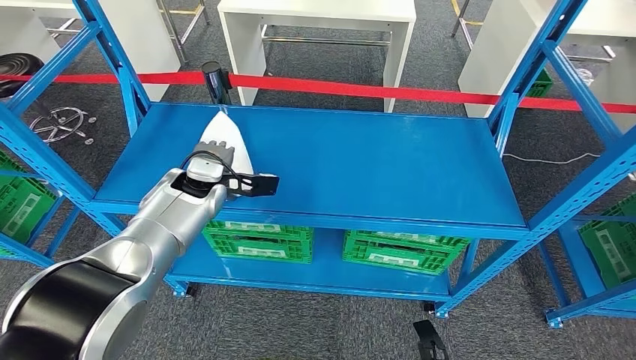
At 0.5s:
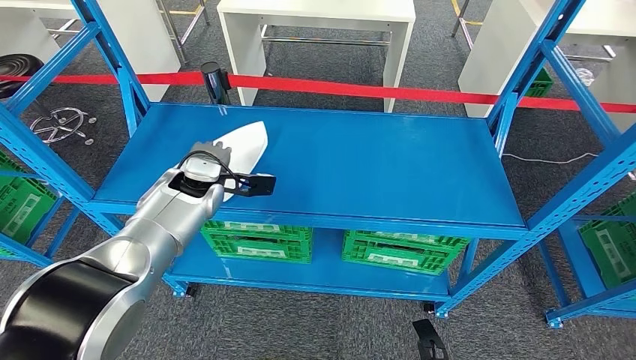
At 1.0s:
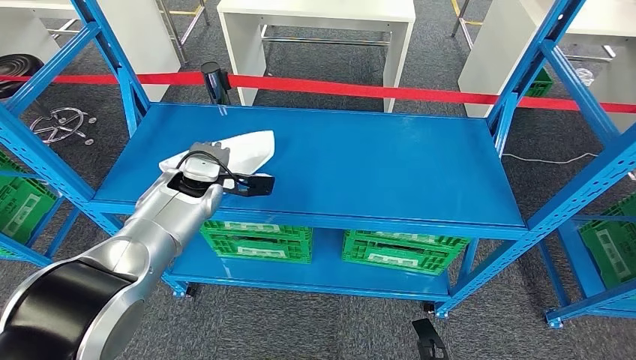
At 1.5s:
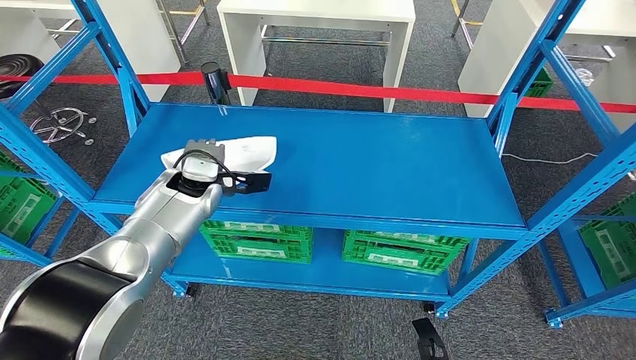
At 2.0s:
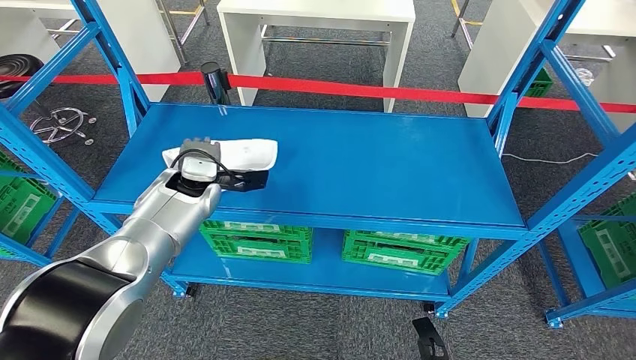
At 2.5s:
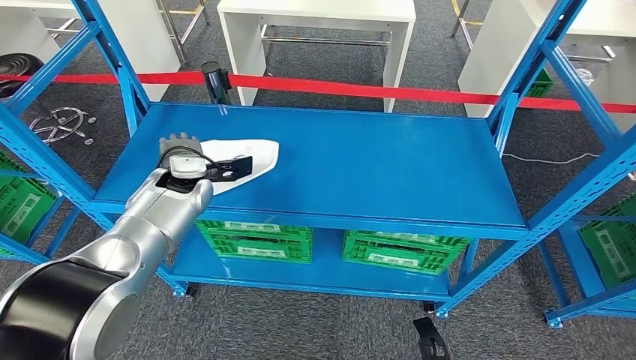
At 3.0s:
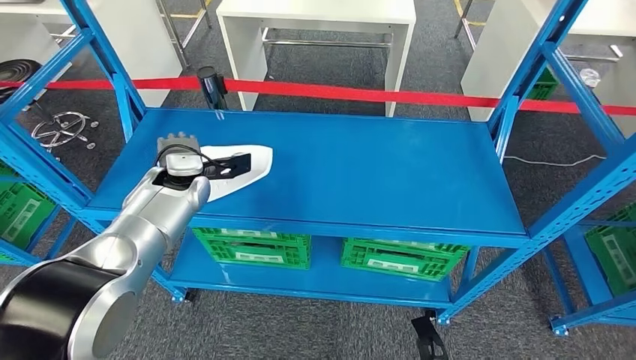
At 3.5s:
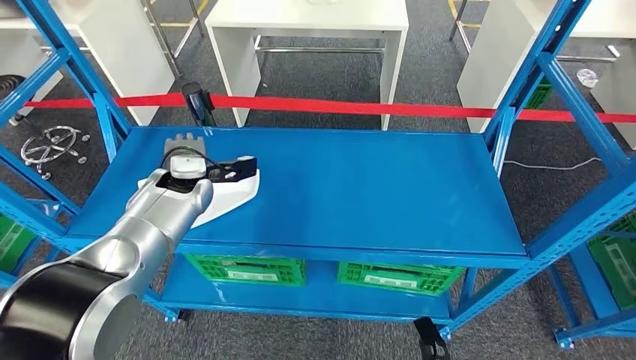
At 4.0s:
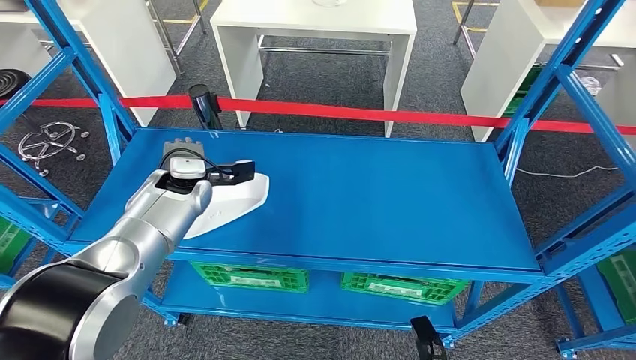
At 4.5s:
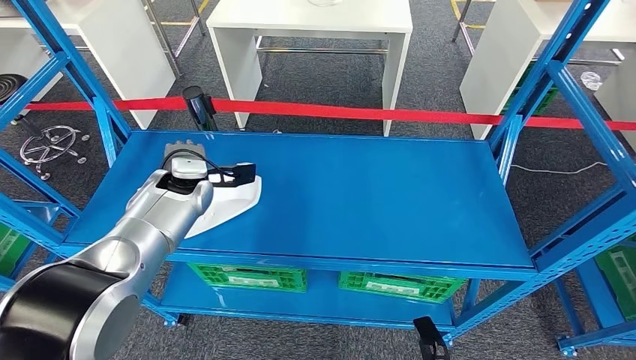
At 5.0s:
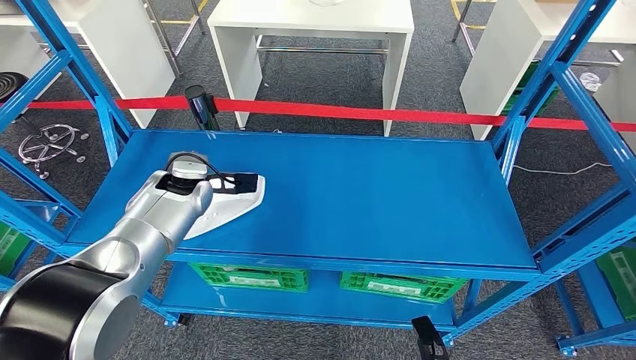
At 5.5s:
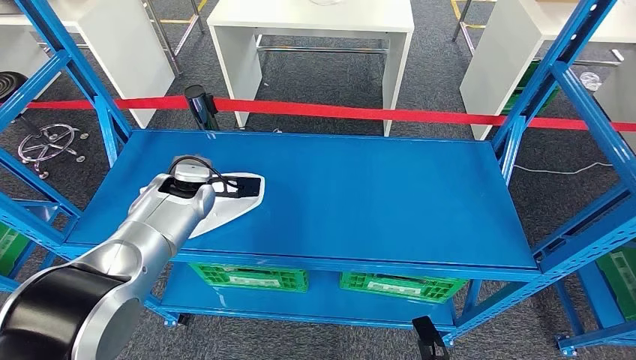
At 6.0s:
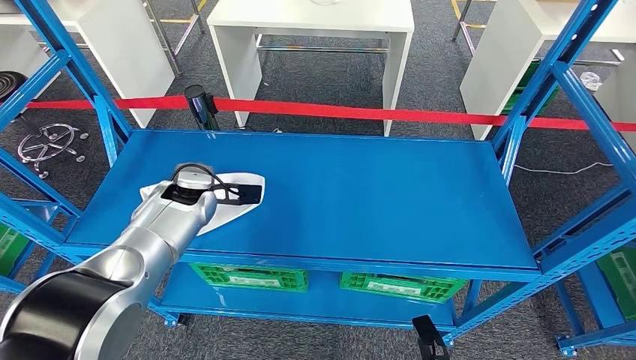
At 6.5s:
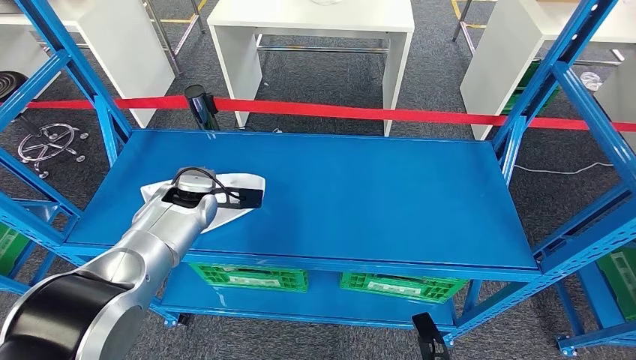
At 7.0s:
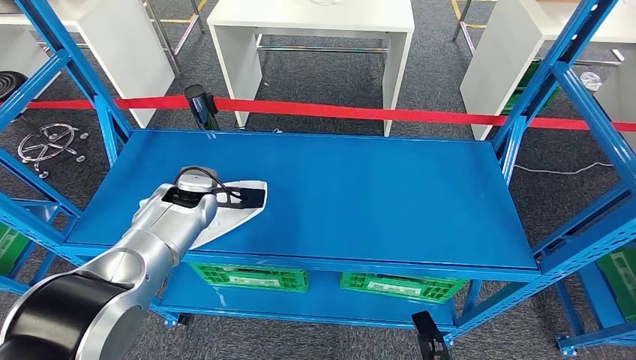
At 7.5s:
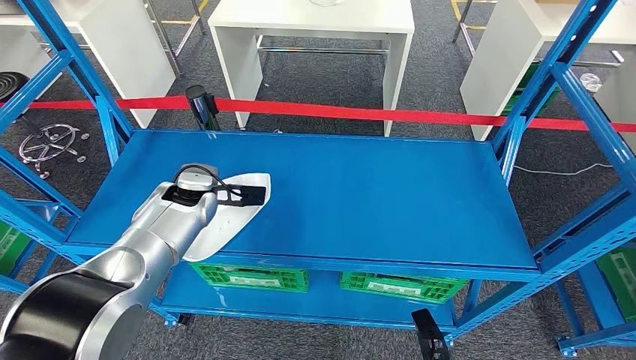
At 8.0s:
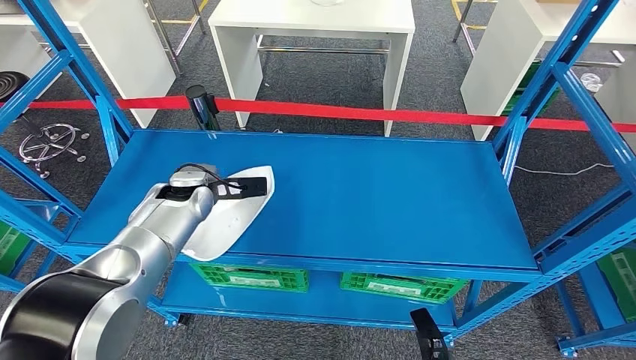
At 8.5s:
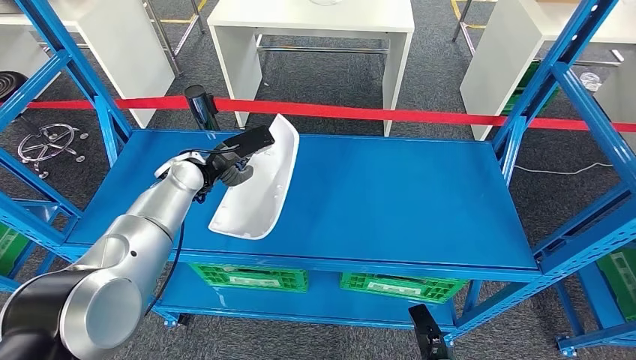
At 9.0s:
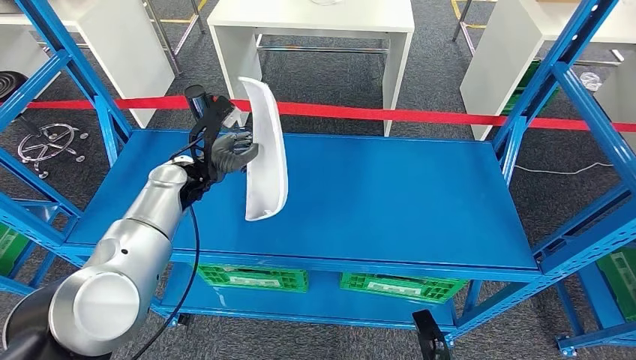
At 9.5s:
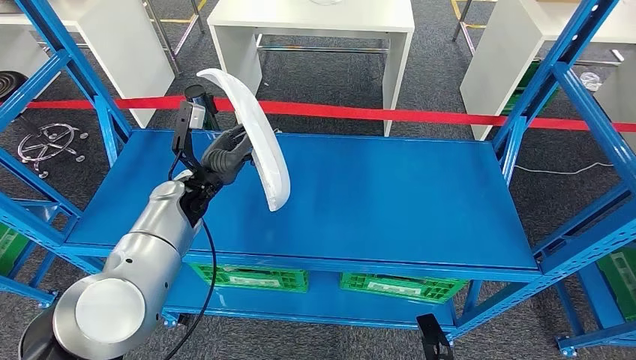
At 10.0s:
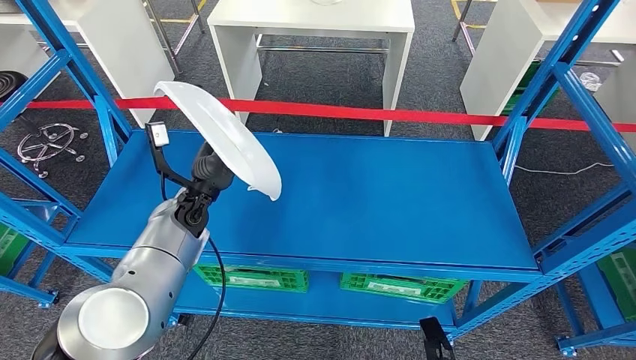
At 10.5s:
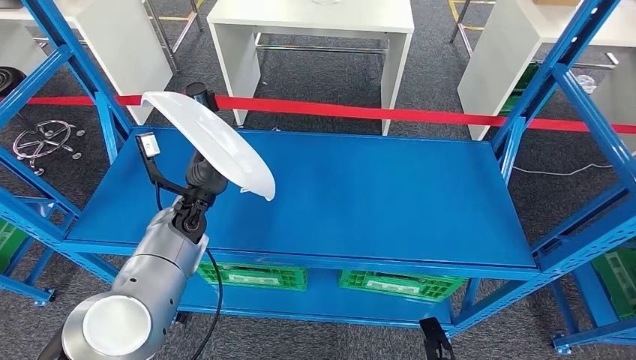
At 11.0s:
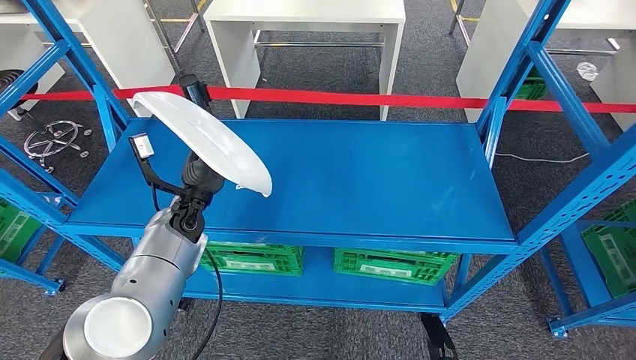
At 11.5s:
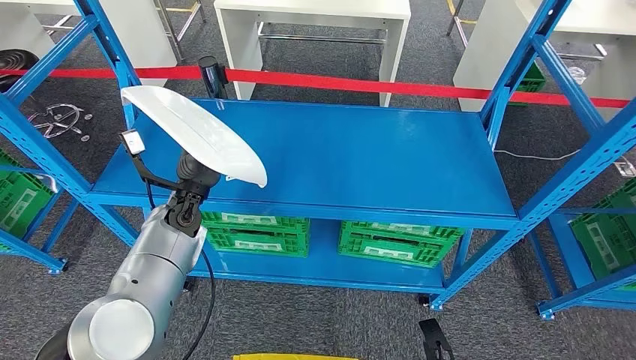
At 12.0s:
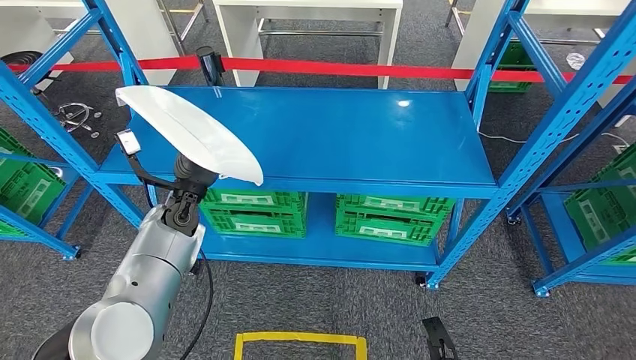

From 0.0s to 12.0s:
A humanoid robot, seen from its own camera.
Step, from 0.0s to 10.5s: Pick up the small component from the shelf.
From 0.0s to 2.0s: There are only small adjustments of the hands.
From 4.0s to 8.0s: There are only small adjustments of the hands.

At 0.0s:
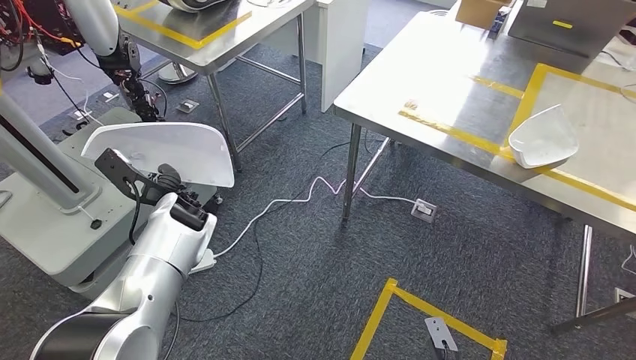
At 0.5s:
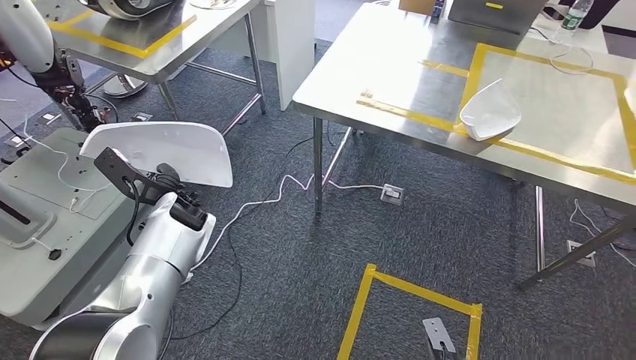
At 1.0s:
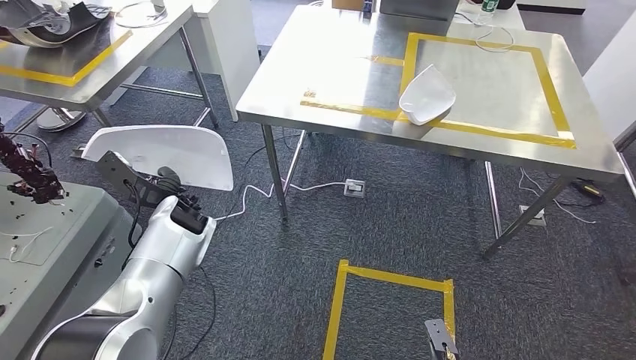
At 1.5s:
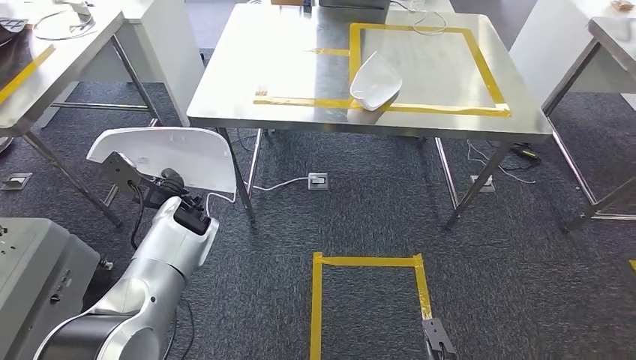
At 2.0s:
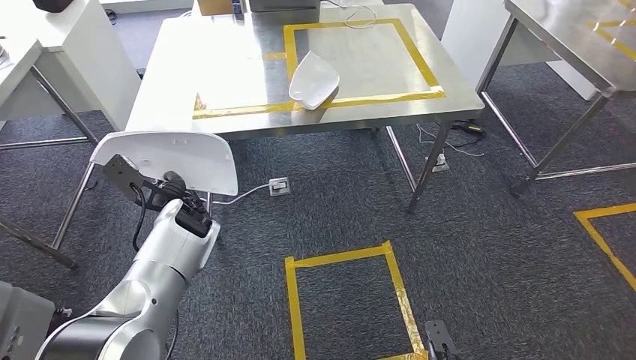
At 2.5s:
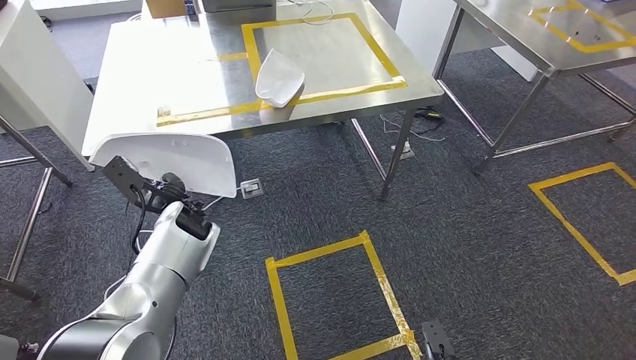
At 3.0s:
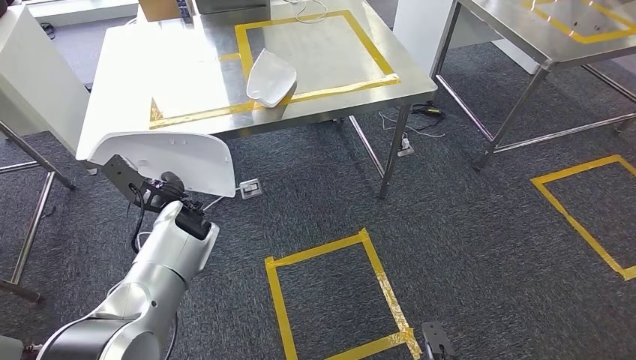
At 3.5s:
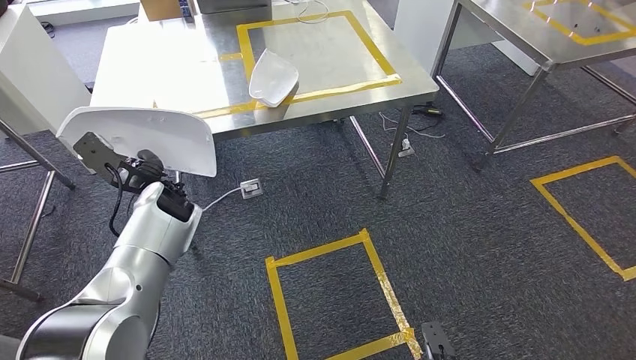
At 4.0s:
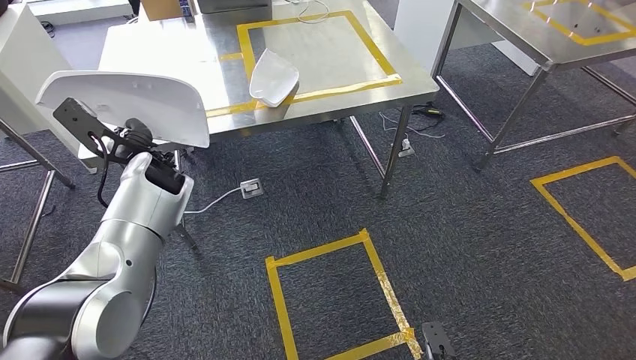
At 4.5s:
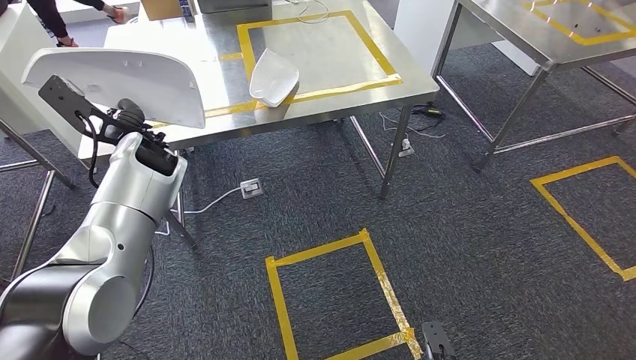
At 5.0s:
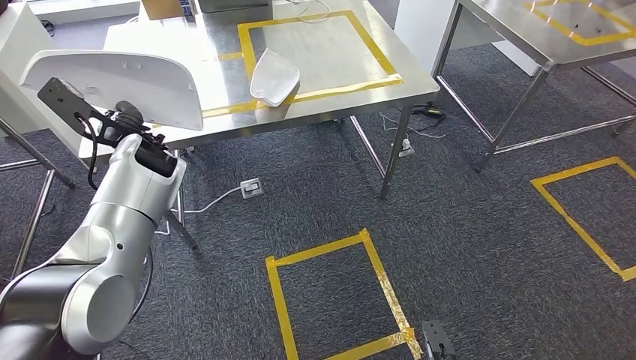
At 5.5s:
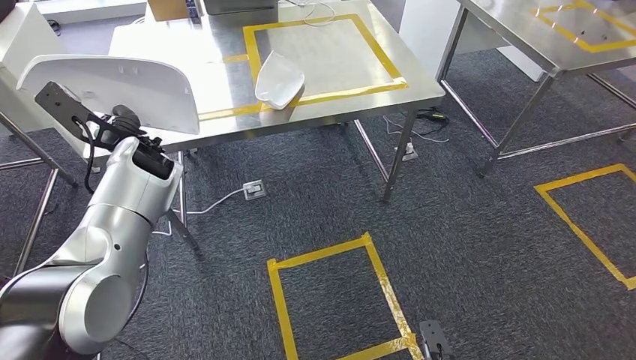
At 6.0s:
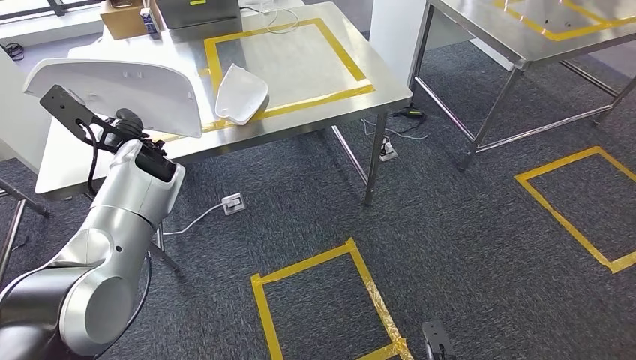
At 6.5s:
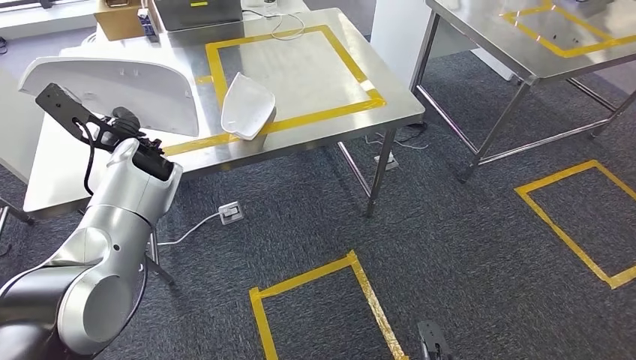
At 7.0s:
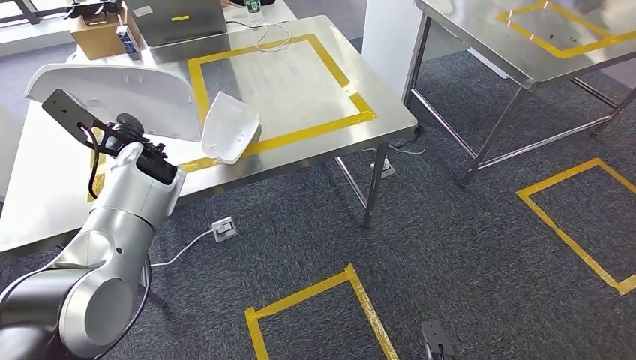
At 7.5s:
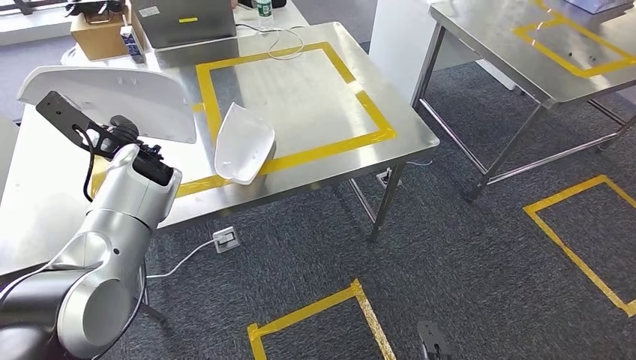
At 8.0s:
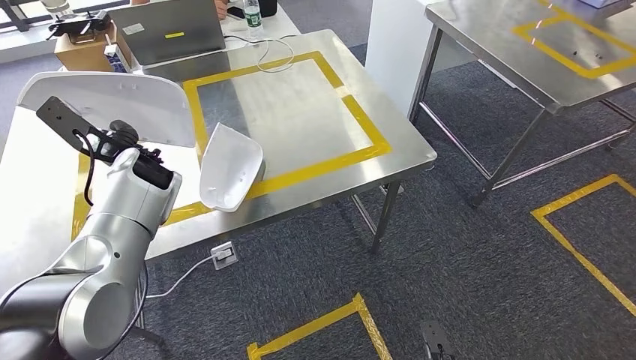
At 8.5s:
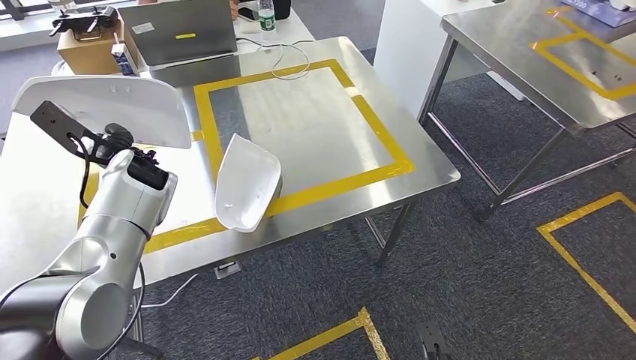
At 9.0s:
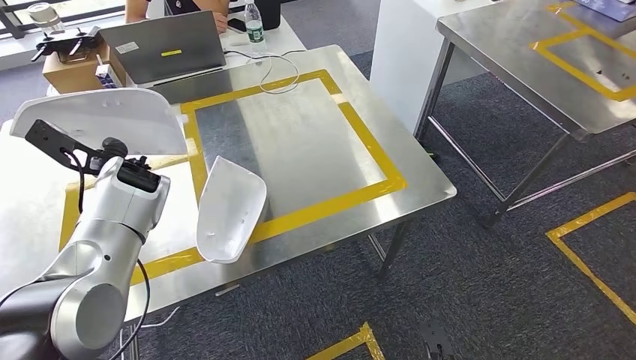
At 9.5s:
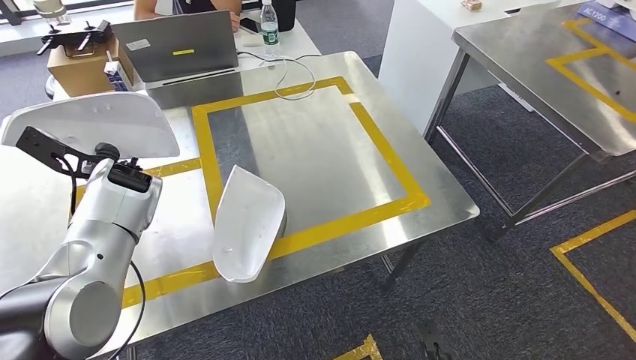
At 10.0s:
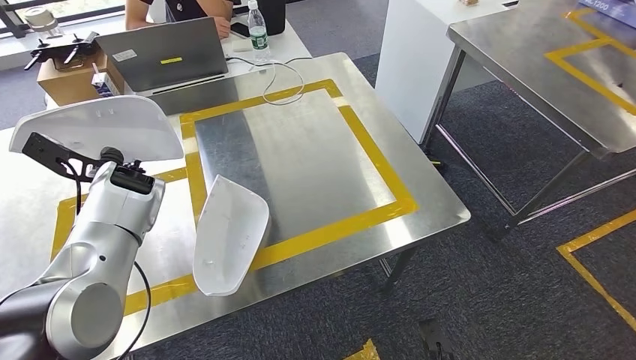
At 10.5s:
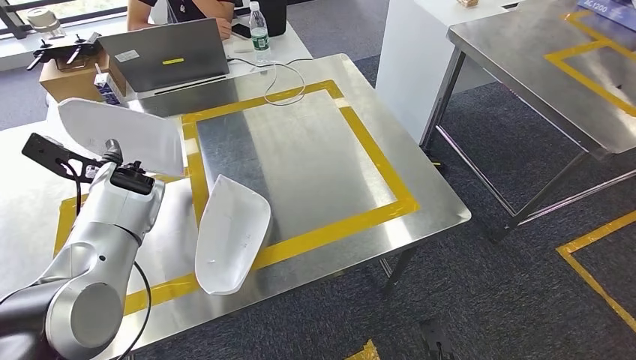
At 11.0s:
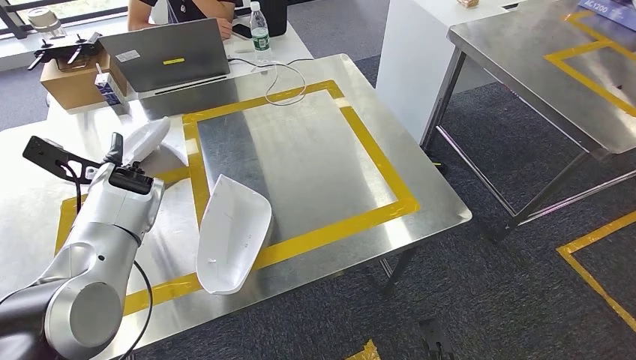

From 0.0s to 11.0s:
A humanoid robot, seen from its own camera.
Step, from 0.0s to 10.0s: Move the small component to the workbench.
